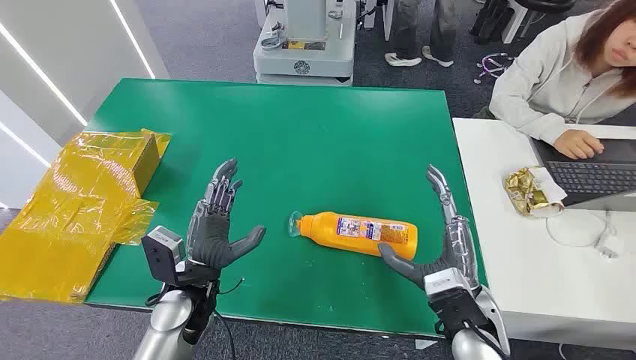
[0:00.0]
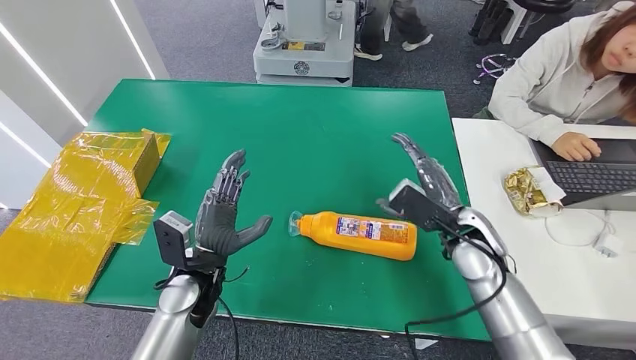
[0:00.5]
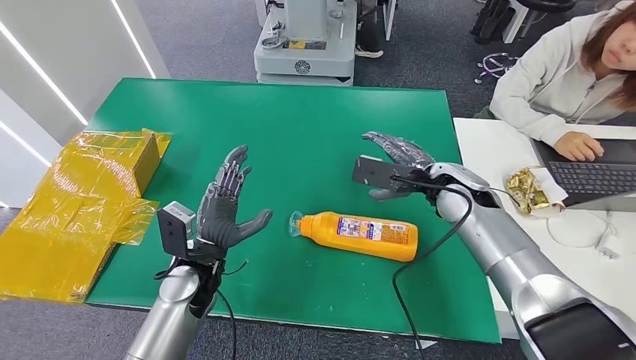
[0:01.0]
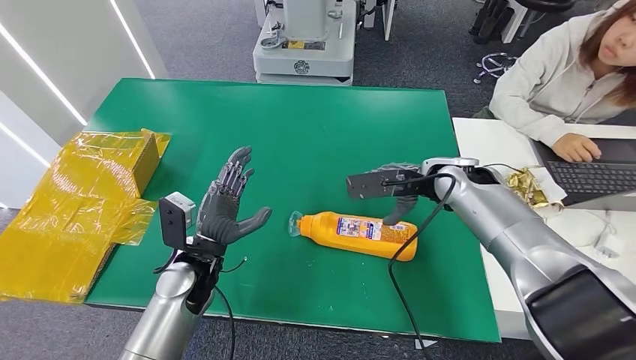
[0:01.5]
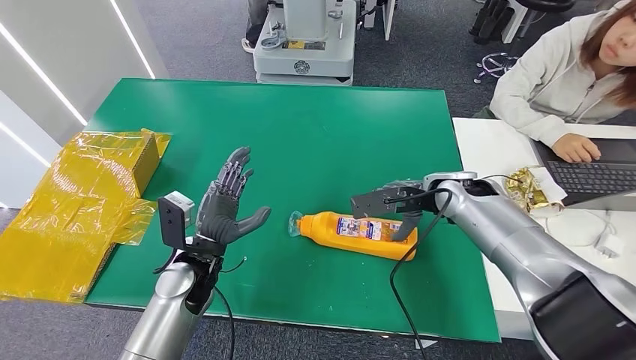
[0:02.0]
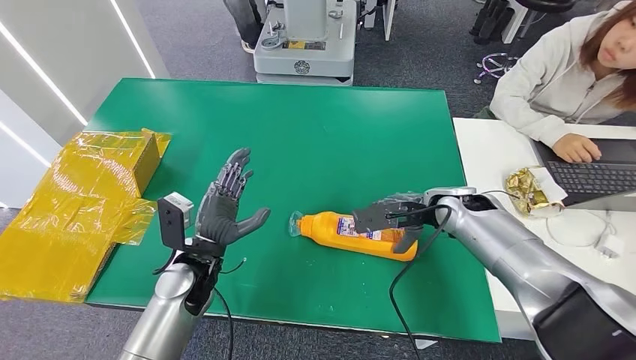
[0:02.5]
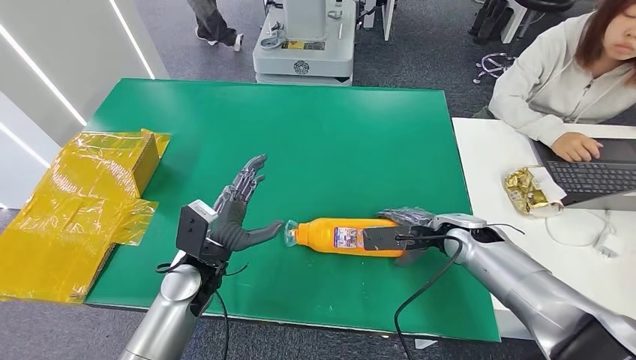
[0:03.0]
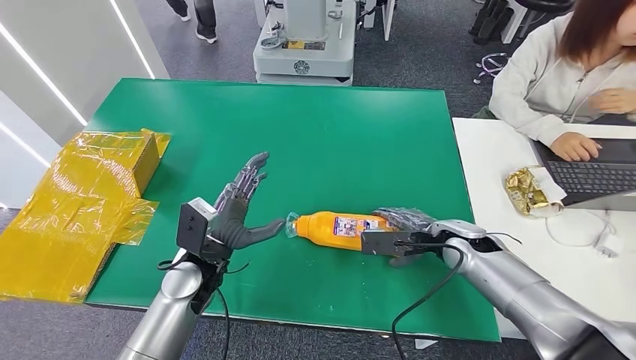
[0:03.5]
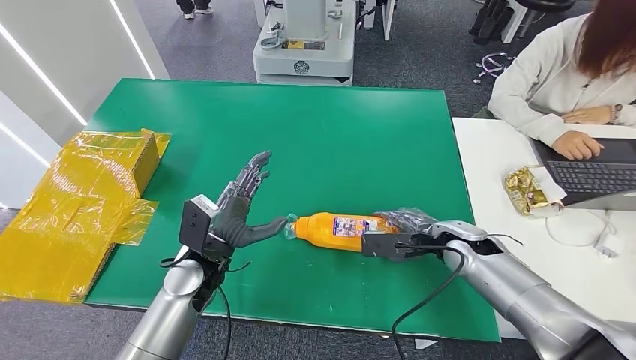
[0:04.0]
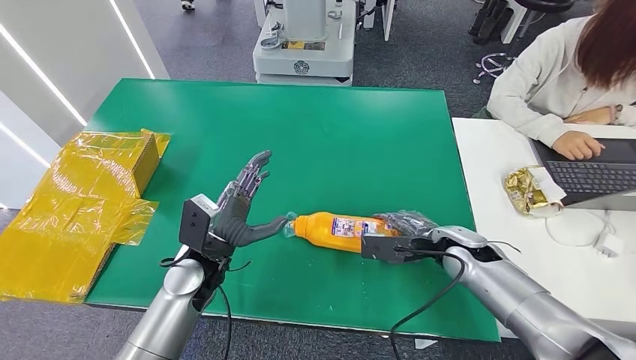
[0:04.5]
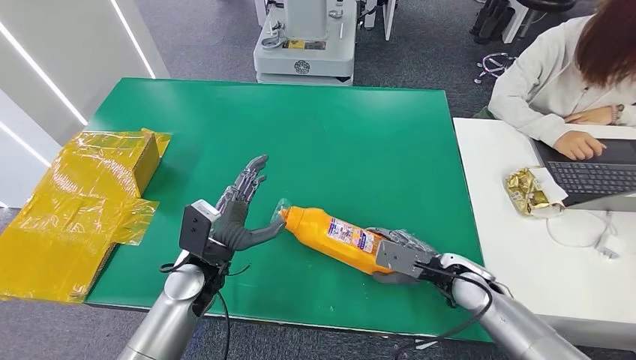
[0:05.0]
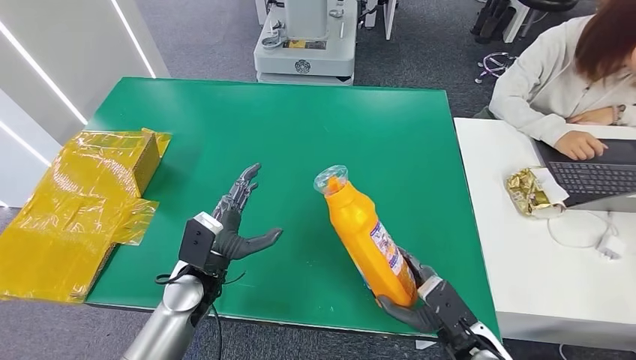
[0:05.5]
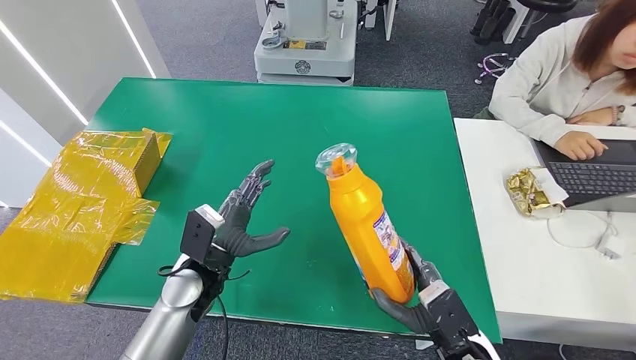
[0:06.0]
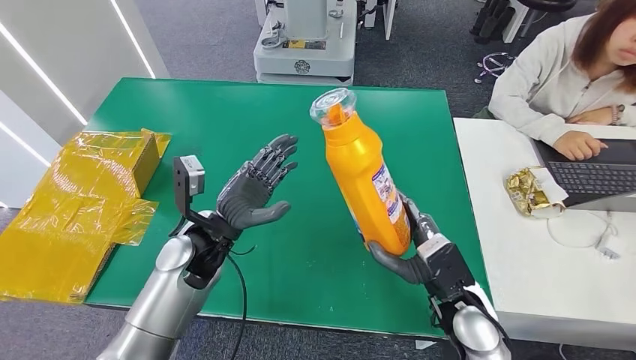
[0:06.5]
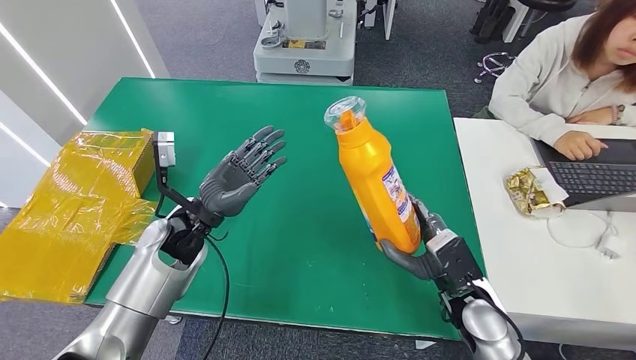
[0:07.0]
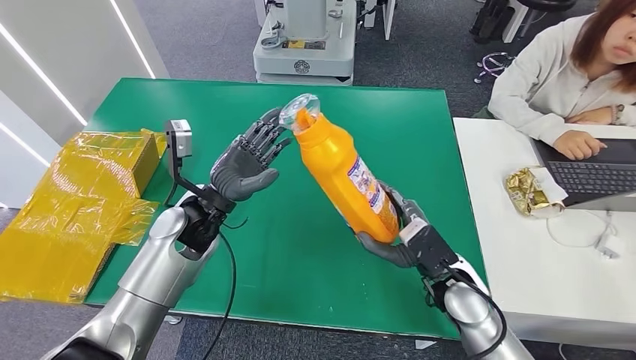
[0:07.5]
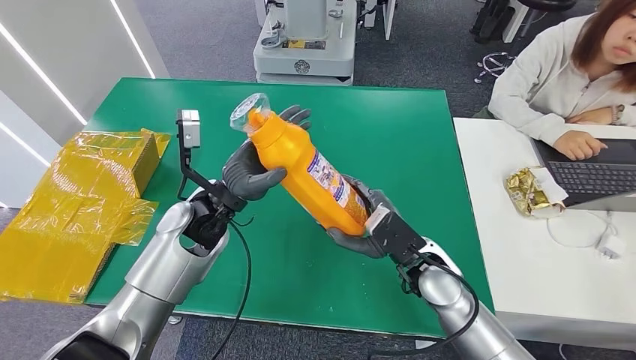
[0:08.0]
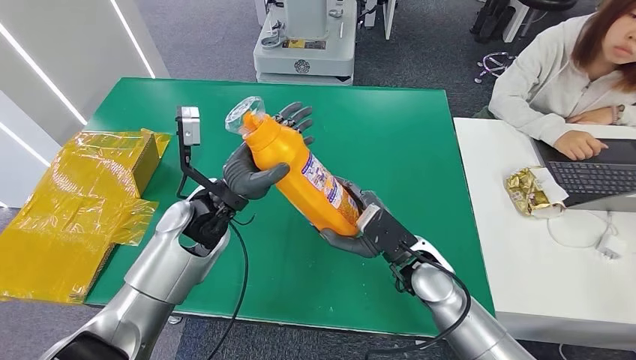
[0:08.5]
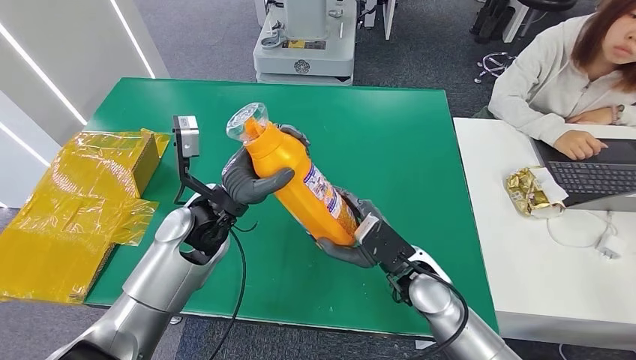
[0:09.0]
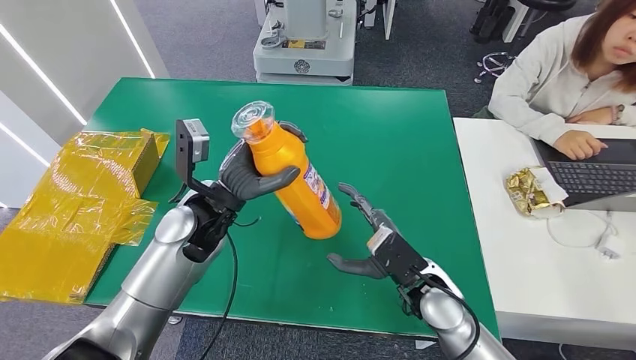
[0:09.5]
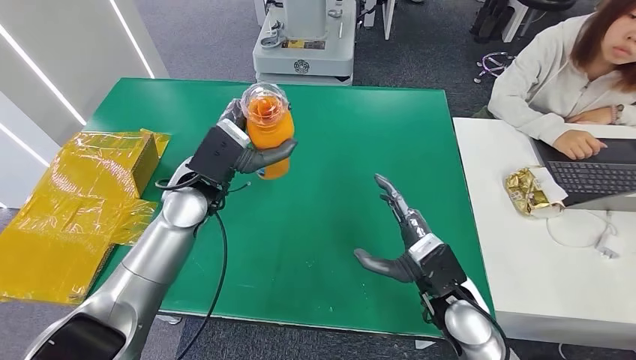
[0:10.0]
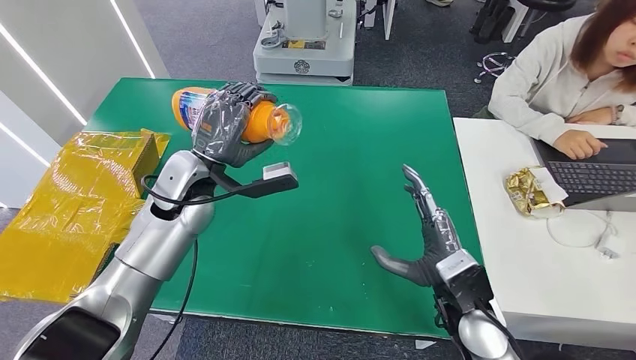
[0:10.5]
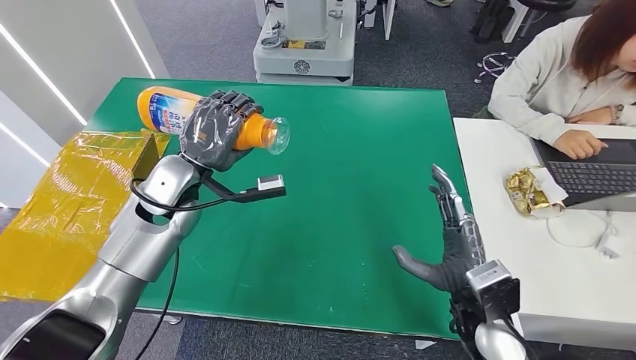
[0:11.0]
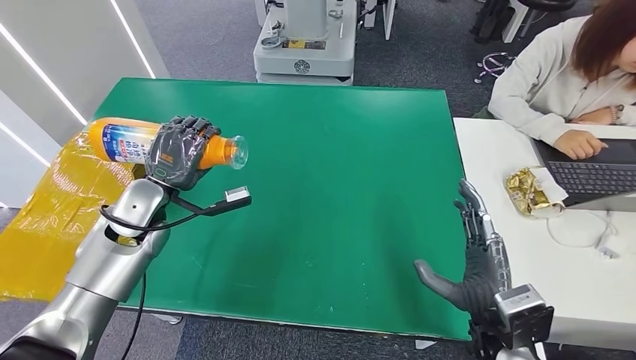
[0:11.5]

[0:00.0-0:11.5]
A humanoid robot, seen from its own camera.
Step, 0:00.0 to 0:06.5: Pick up the bottle from the table.
0:02.0 to 0:04.0: The right hand heads downward and backward, covering roughly 10 cm.
0:04.0 to 0:06.0: The right hand heads backward, covering roughly 20 cm.
0:06.0 to 0:07.5: The left hand is displaced forward and upward by some 10 cm. Meanwhile the right hand is displaced forward by roughly 10 cm.

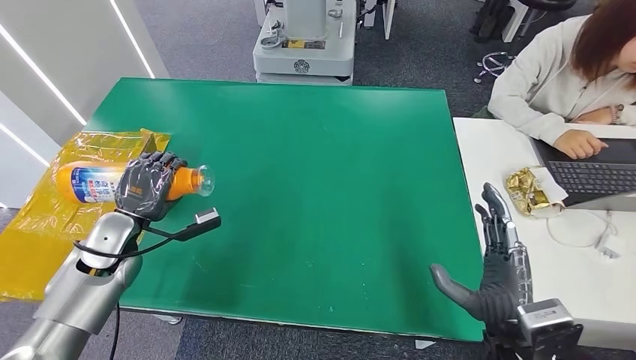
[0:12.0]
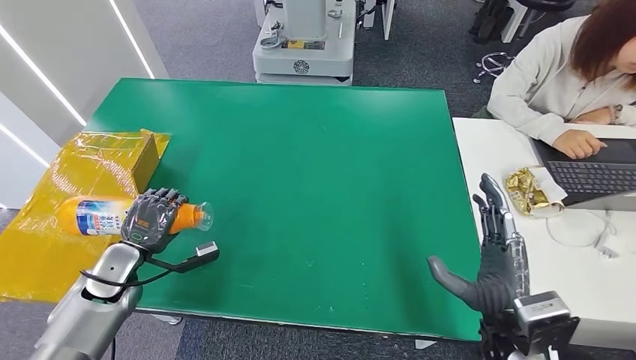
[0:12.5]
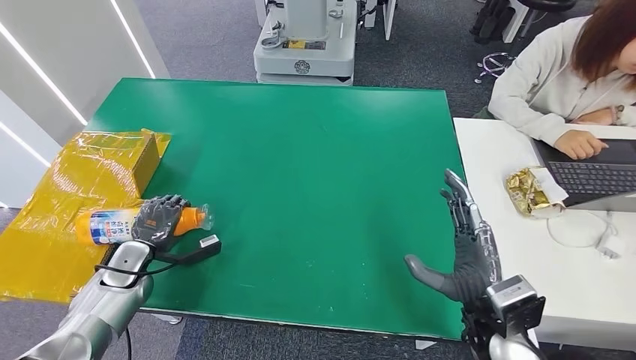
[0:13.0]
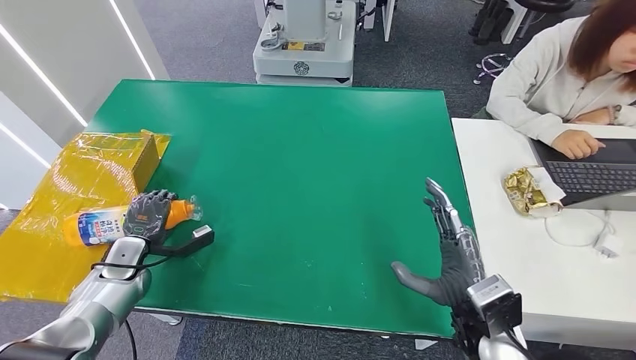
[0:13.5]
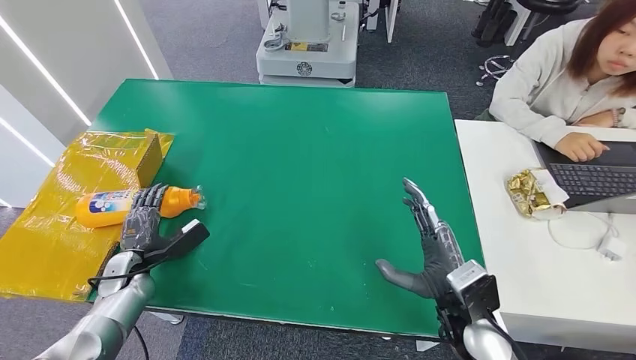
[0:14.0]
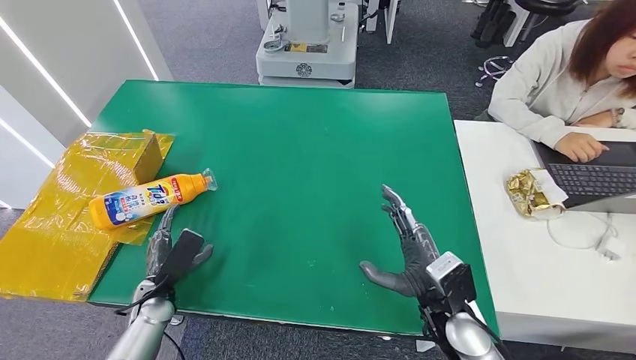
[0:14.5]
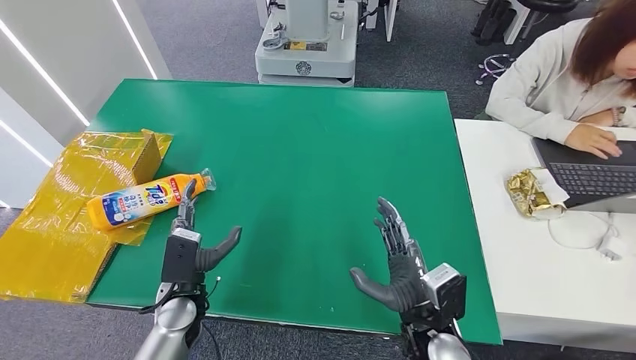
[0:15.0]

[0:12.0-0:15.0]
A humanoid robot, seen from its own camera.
Step, 0:12.0 to 0:15.0: Turn the bottle to the front side.
0:12.0 to 0:13.5: The left hand moves downward, approximately 10 cm.
0:13.5 to 0:15.0: The right hand moves to the left and downward, about 10 cm. The left hand goes some 20 cm to the right and backward.
